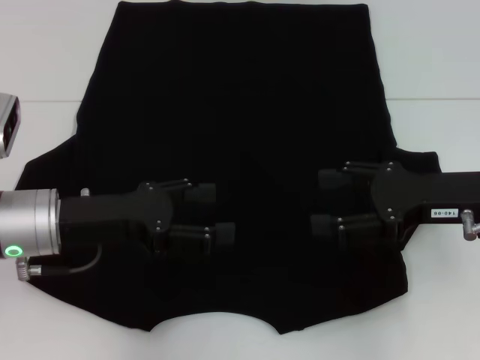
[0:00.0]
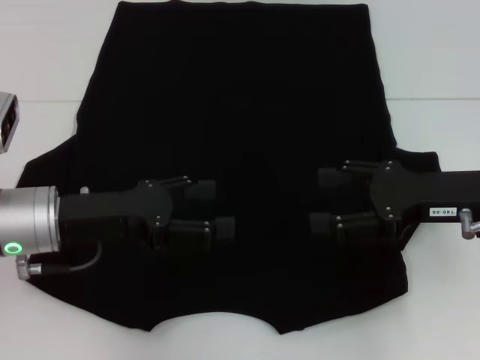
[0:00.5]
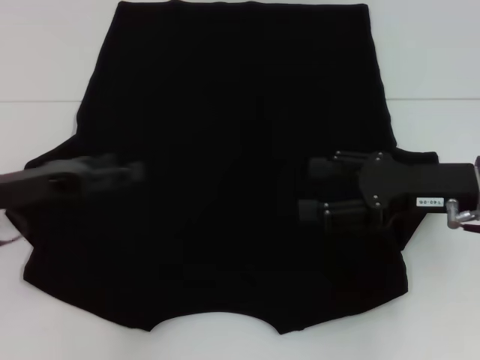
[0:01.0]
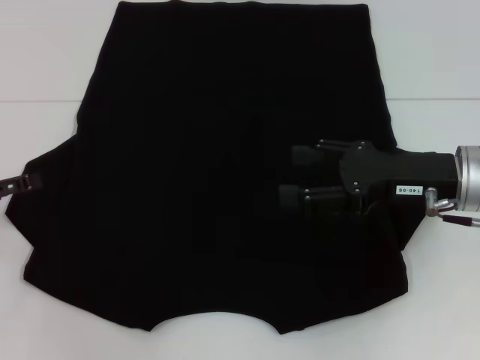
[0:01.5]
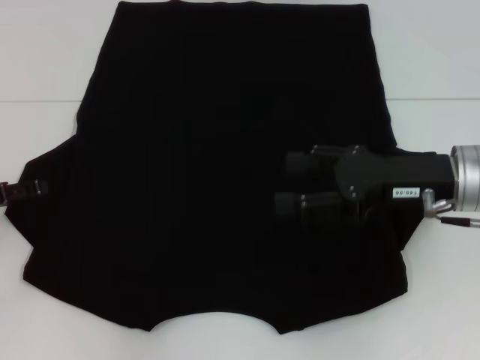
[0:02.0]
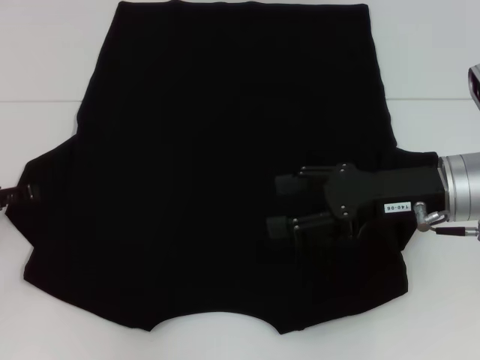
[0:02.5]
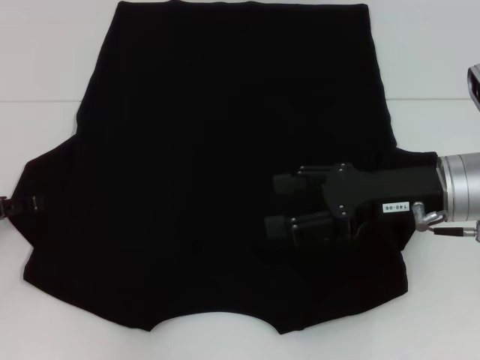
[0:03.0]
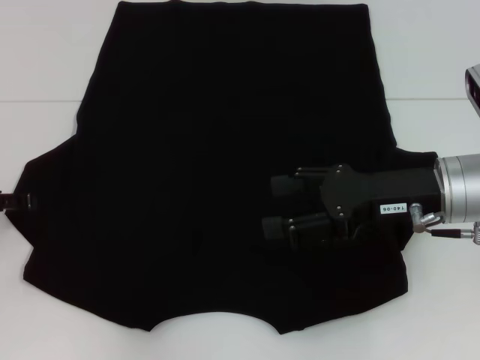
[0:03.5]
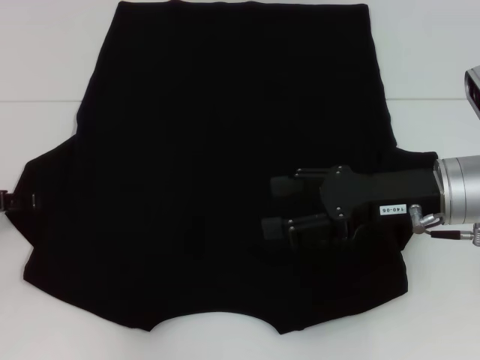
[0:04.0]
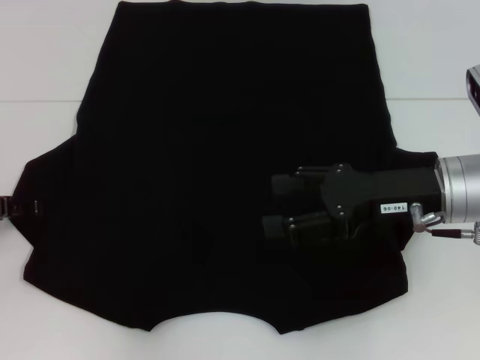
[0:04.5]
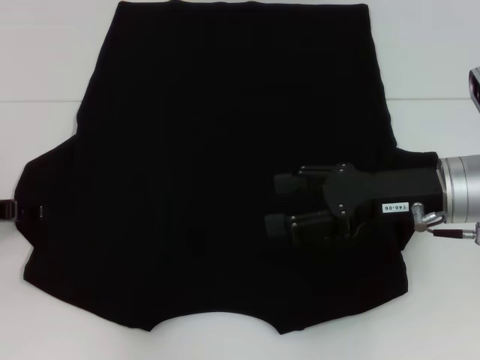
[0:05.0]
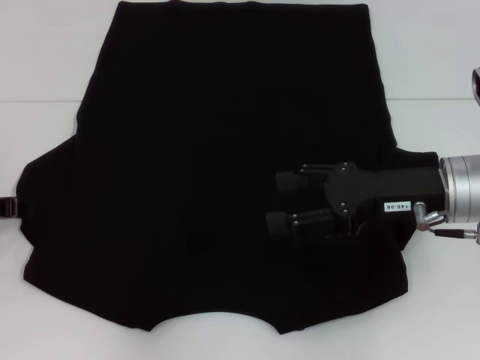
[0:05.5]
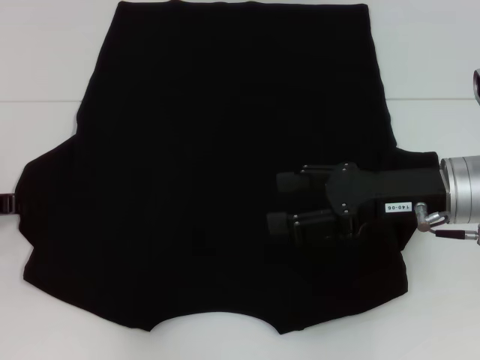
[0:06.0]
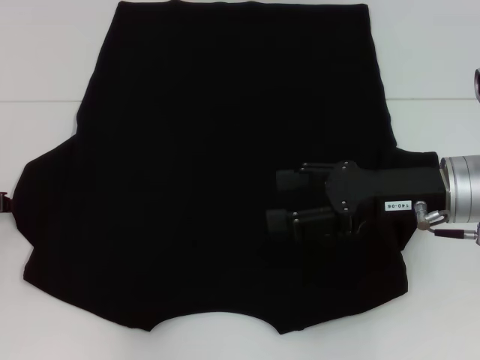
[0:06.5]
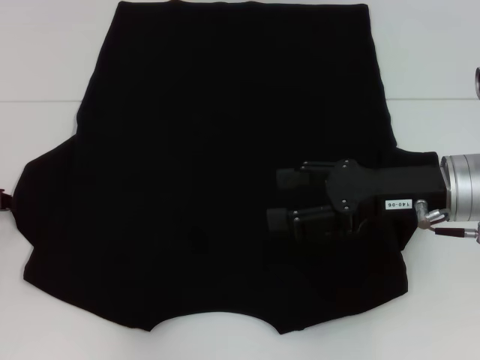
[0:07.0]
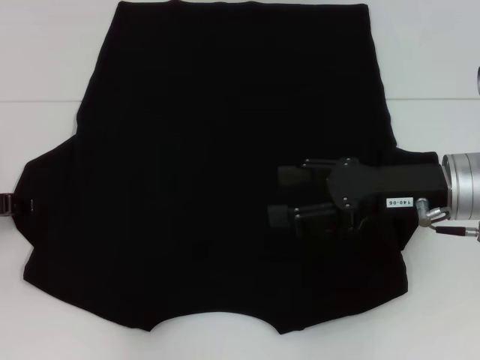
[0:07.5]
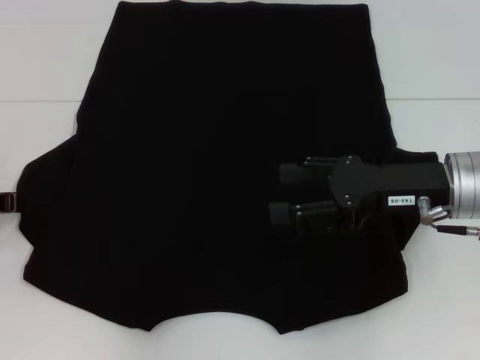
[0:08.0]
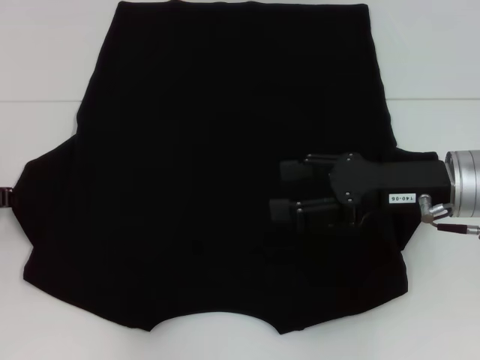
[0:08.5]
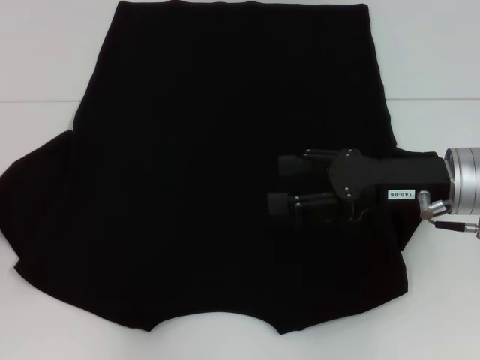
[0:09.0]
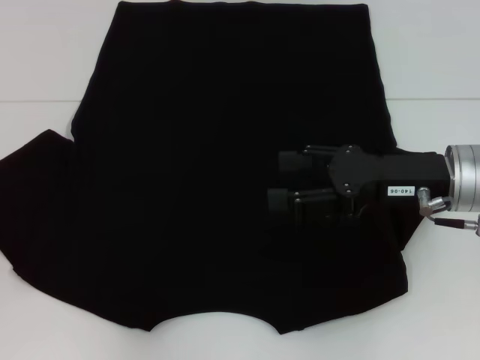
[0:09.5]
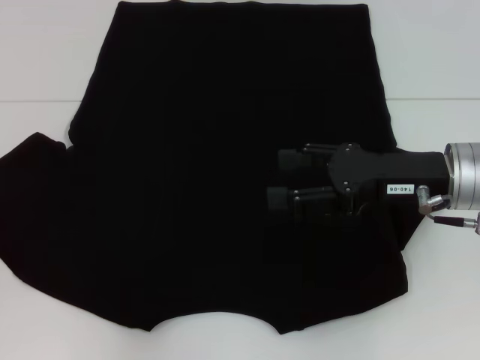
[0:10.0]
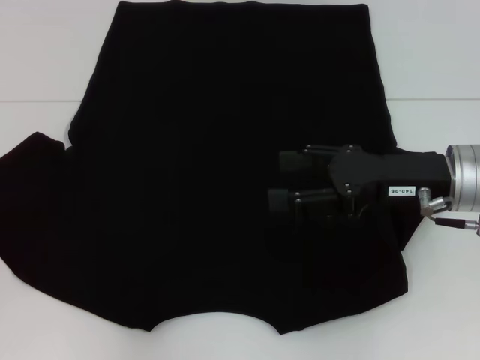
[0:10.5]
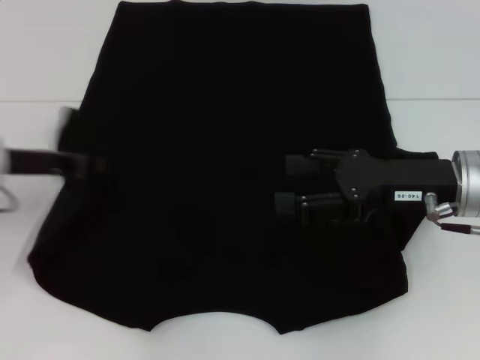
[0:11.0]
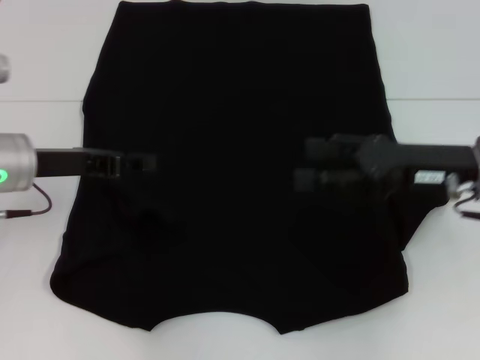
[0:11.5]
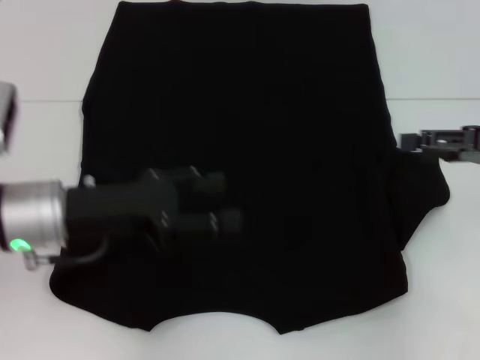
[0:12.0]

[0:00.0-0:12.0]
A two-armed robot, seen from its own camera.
Step, 0:00.0 to 0:11.0: Fold the bottom left sleeve with your left hand.
0:00.0 to 0:02.0: The left gripper goes approximately 15 cm to the left.
0:02.0 to 0:04.0: The grippers make only small movements.
0:08.0 to 0:10.0: The left gripper heads to the left, covering approximately 5 cm, and closes its fingers.
0:10.0 to 0:12.0: The right gripper moves to the right, approximately 10 cm. The left gripper shifts about 20 cm to the right, and opens up.

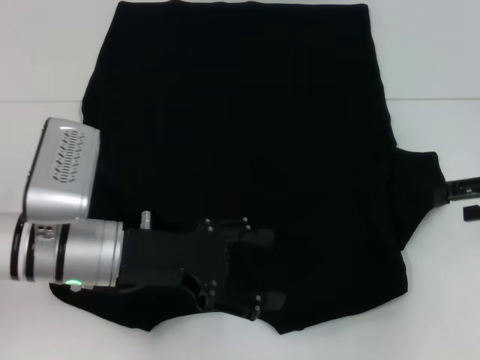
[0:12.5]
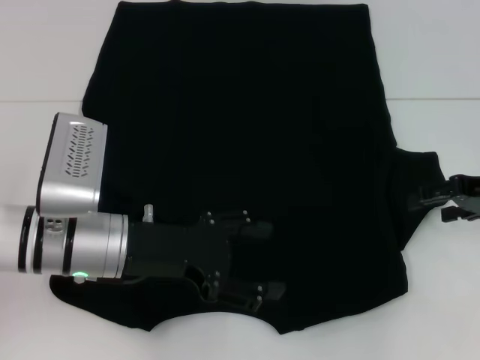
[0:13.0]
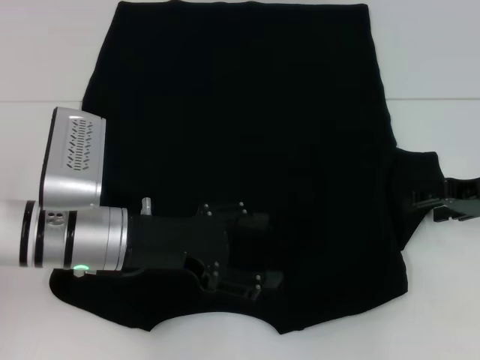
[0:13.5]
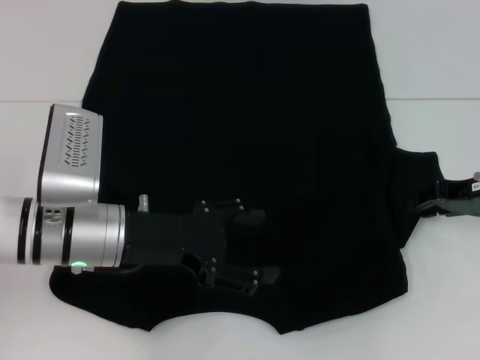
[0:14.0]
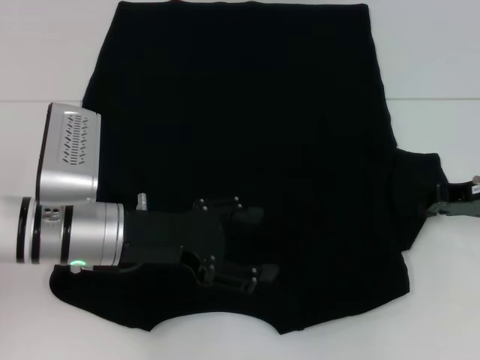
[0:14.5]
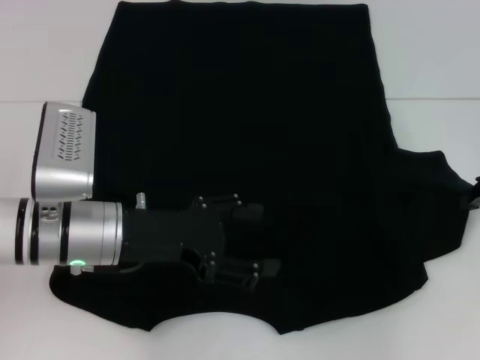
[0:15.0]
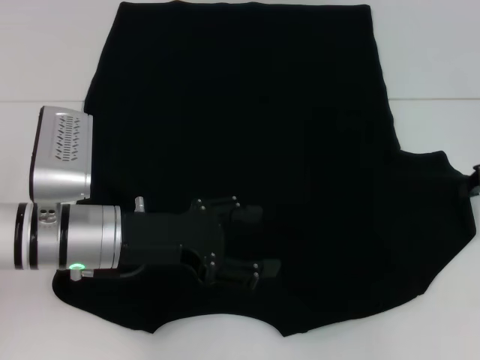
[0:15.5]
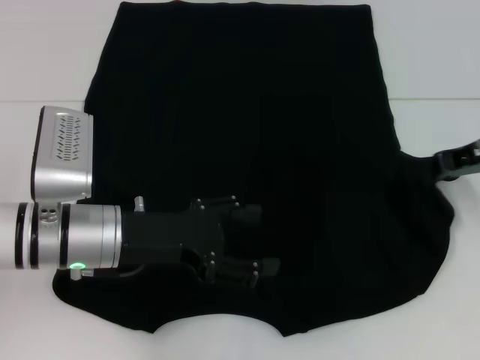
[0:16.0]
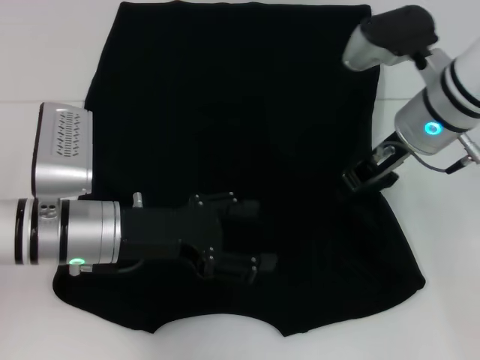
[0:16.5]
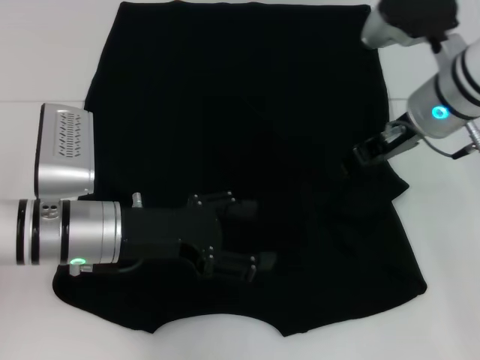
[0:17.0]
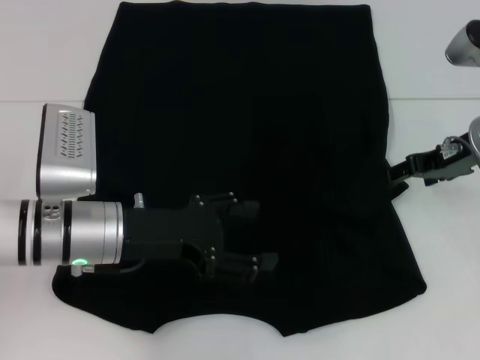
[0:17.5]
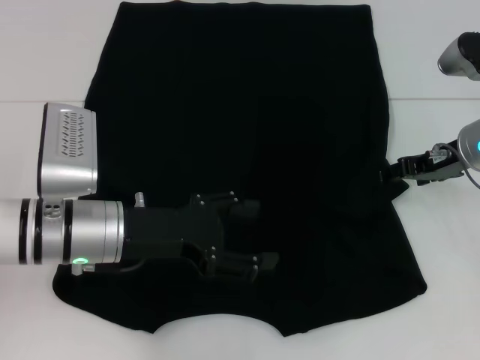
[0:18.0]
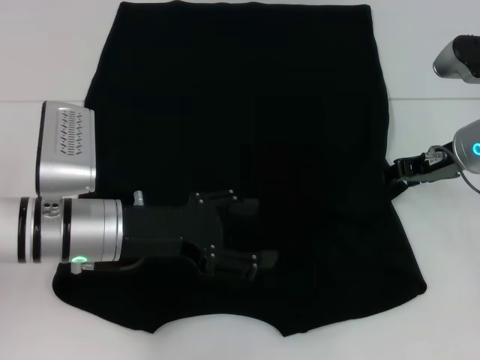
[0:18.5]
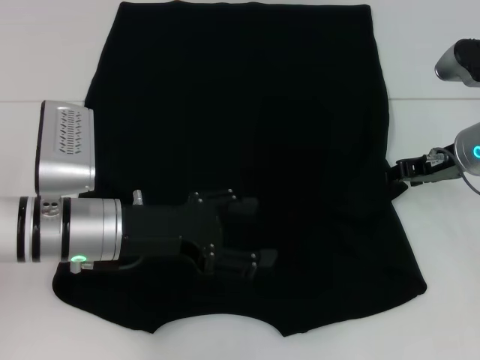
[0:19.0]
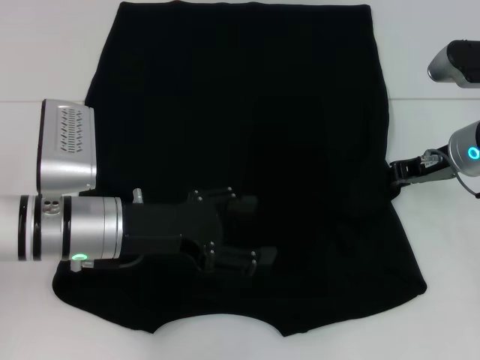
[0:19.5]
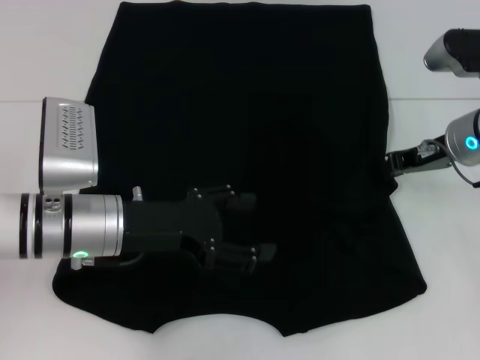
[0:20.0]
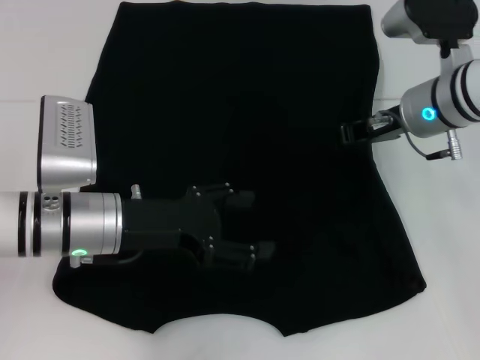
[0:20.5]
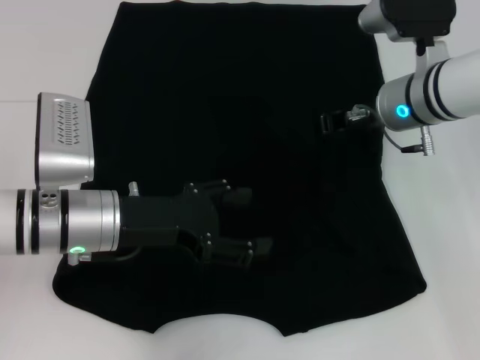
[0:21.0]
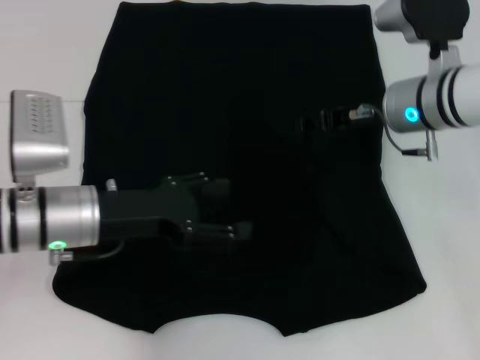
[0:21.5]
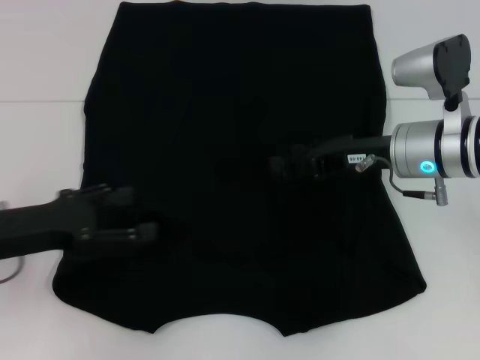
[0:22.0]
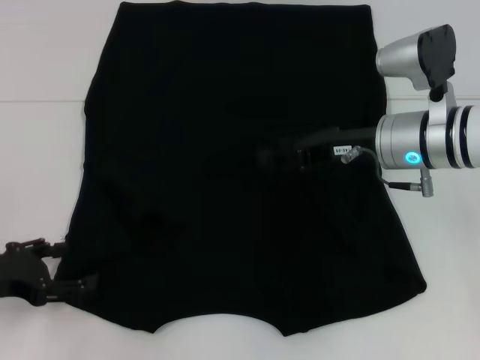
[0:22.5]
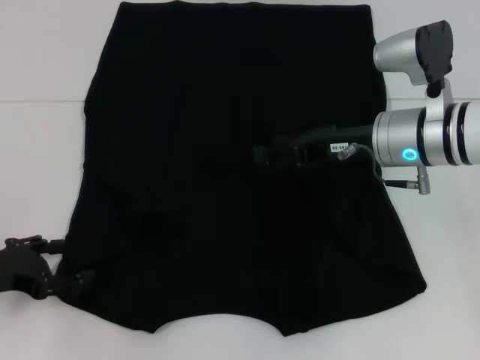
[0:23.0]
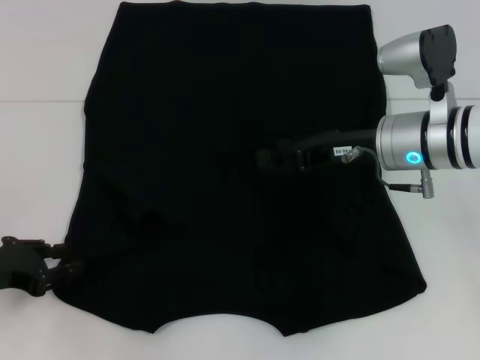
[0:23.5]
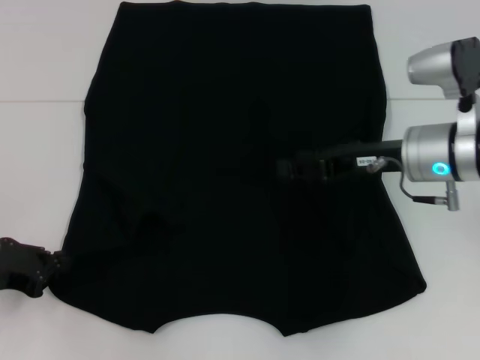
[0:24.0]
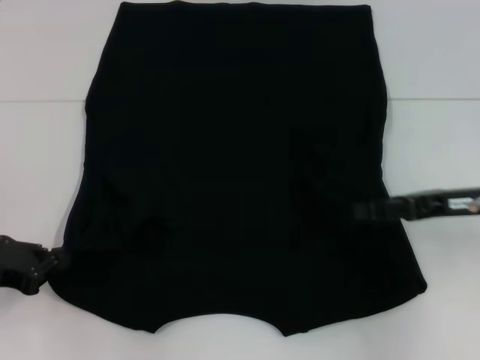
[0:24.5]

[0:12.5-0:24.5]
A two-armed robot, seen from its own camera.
Step, 0:12.5 to 0:16.5: Fold the bottom right sleeve with your right hand.
Step, 0:17.0 to 0:24.0: Grab the bottom left corner with your left hand.
0:12.5 to 0:14.5: The right gripper ends up roughly 5 cm from where it was, and closes its fingers.
0:14.5 to 0:16.5: The right gripper is displaced to the left and upward by roughly 15 cm.
0:16.5 to 0:18.5: The right gripper shifts some 10 cm to the right and downward, and opens its fingers.
0:18.5 to 0:20.5: The right gripper travels to the left by about 5 cm, and closes.
0:20.5 to 0:22.5: The left gripper shifts some 15 cm to the left. The right gripper opens.
0:22.5 to 0:24.5: The left gripper closes. Meanwhile the right gripper moves to the right and backward, approximately 15 cm.

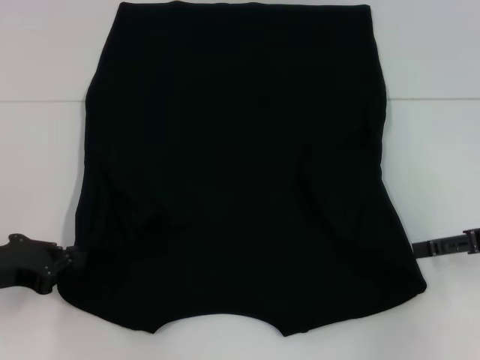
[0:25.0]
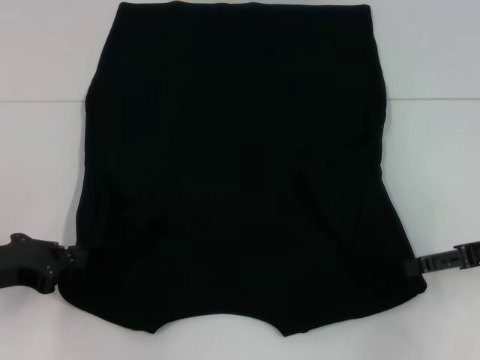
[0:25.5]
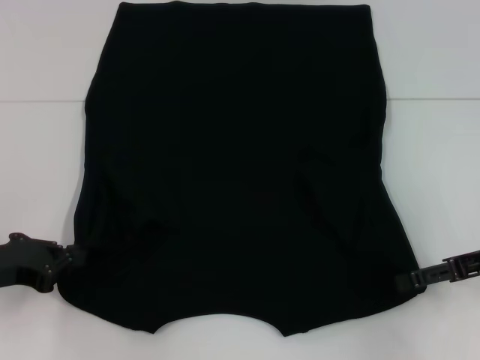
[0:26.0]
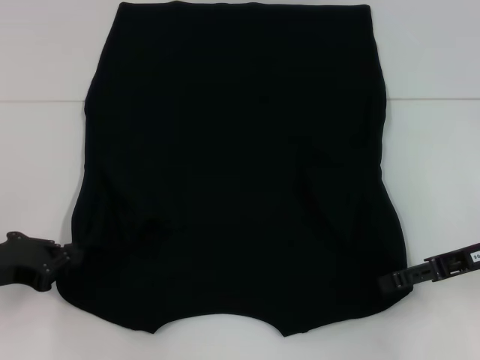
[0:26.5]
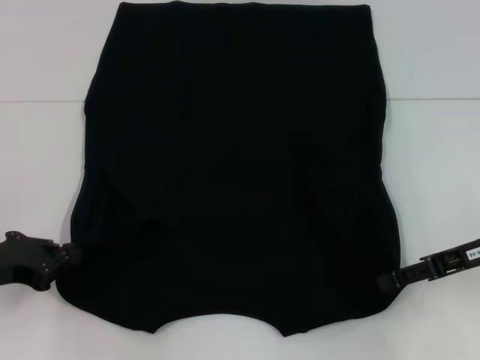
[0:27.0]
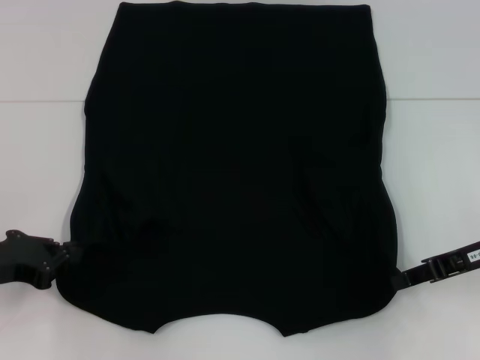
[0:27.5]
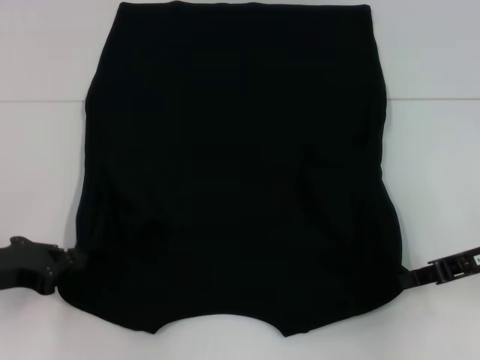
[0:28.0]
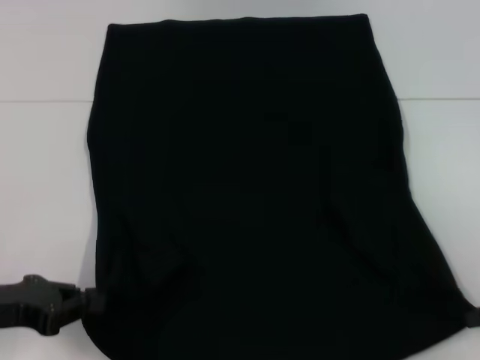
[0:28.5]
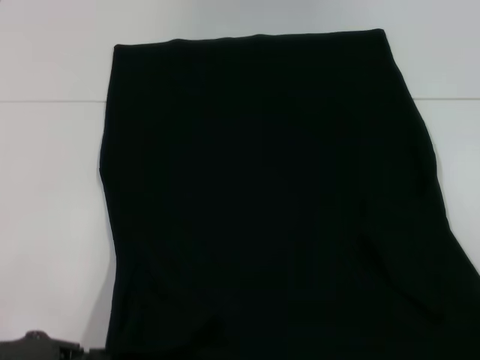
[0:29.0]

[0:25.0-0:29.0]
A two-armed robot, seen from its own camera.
Step, 0:25.0 to 0:27.5: Grab the bottom right corner with your right hand.
0:25.0 to 0:27.0: There are only small adjustments of the grippers.
0:27.0 to 0:29.0: The right gripper goes roughly 15 cm to the right and backward, and closes its fingers; the left gripper goes about 5 cm backward.
